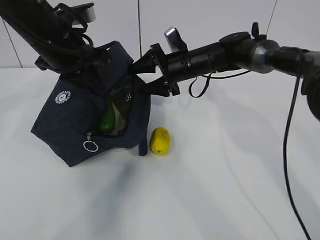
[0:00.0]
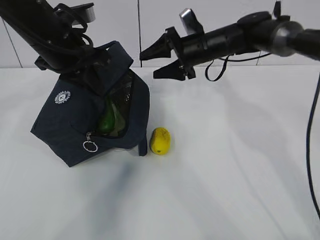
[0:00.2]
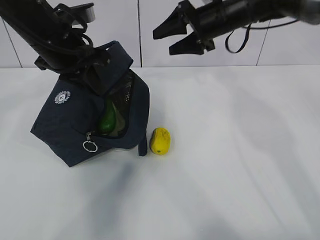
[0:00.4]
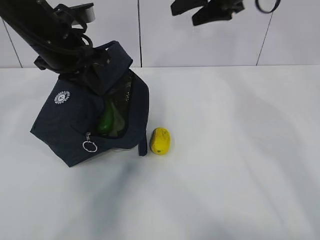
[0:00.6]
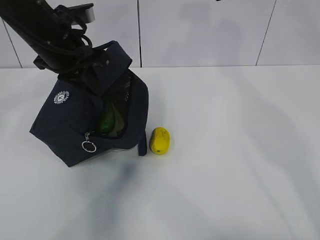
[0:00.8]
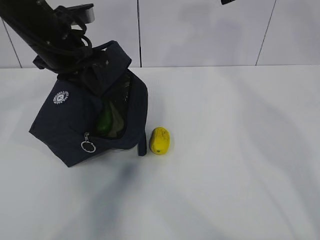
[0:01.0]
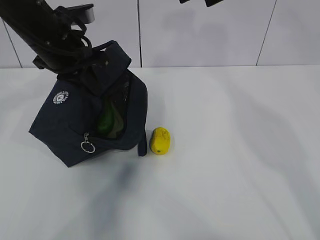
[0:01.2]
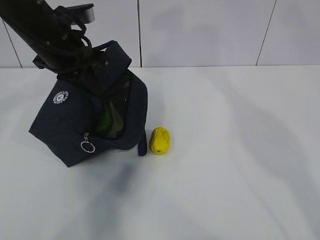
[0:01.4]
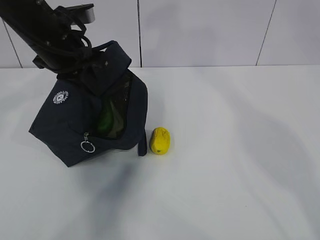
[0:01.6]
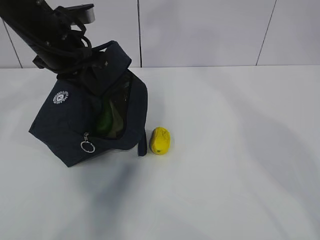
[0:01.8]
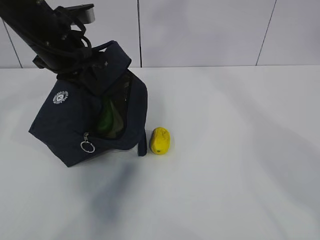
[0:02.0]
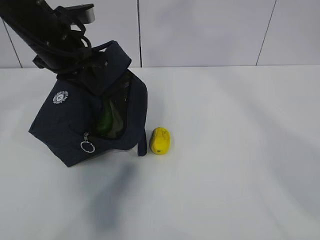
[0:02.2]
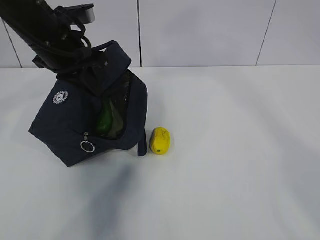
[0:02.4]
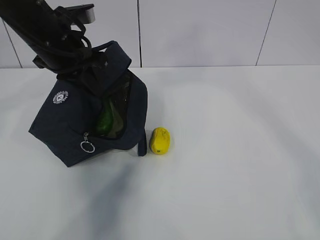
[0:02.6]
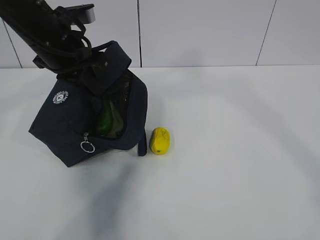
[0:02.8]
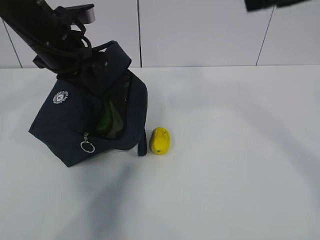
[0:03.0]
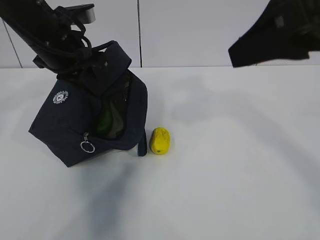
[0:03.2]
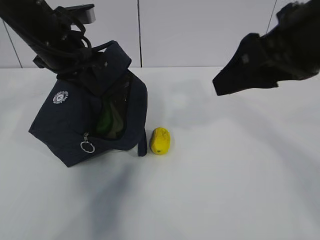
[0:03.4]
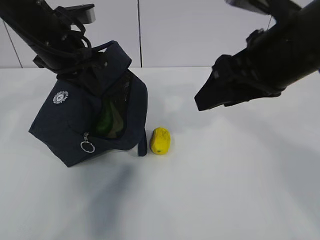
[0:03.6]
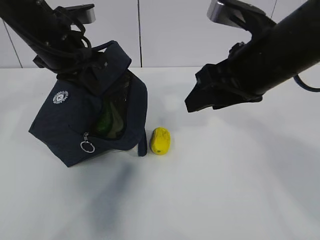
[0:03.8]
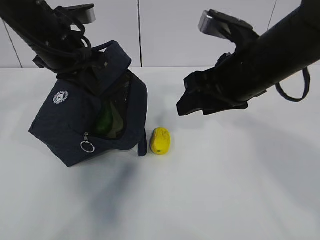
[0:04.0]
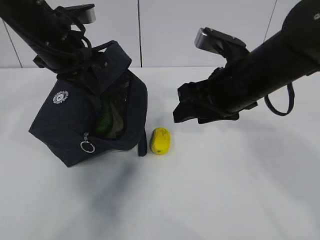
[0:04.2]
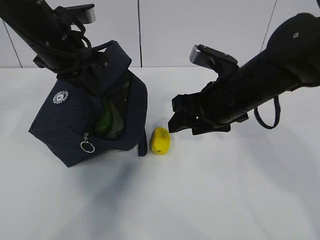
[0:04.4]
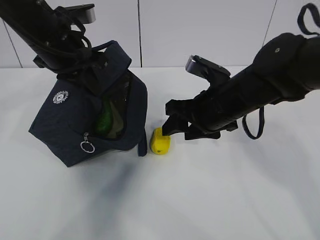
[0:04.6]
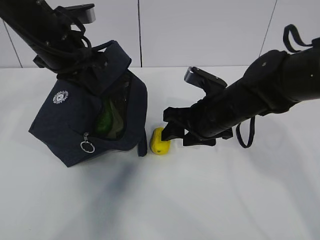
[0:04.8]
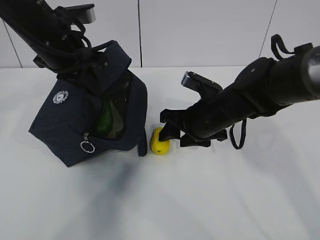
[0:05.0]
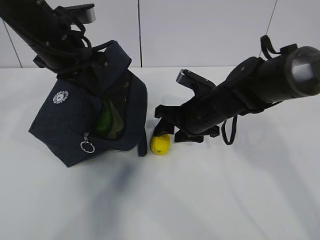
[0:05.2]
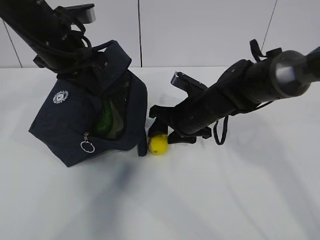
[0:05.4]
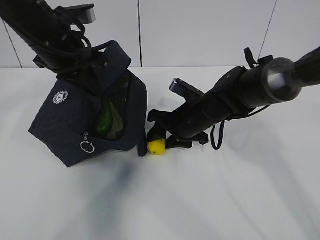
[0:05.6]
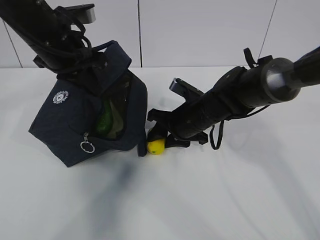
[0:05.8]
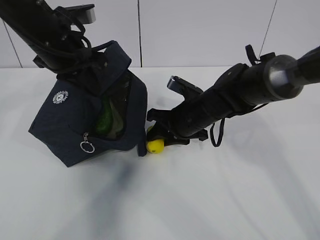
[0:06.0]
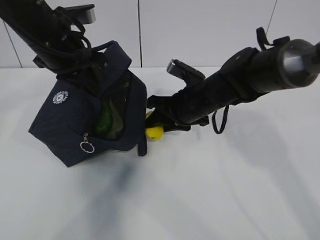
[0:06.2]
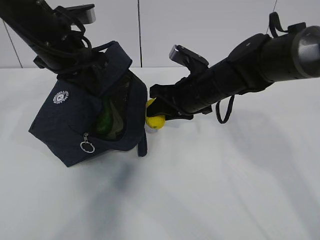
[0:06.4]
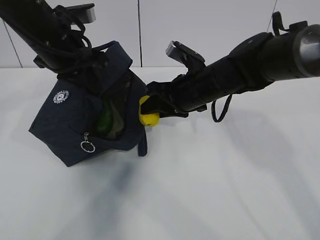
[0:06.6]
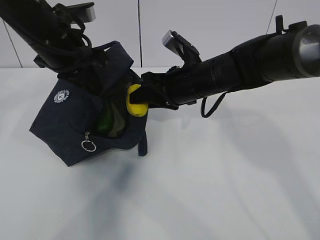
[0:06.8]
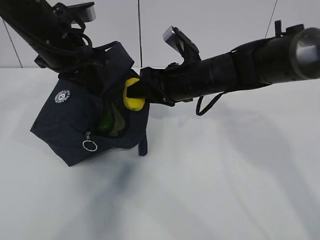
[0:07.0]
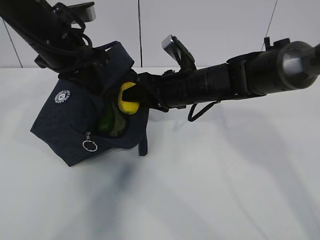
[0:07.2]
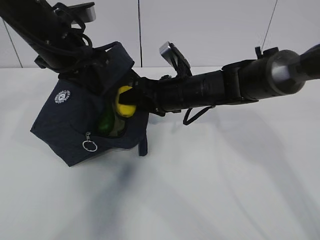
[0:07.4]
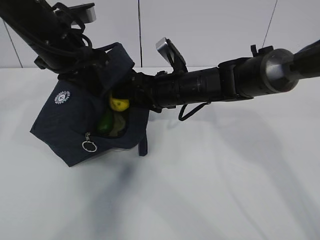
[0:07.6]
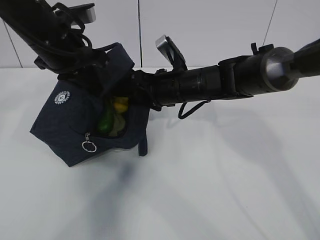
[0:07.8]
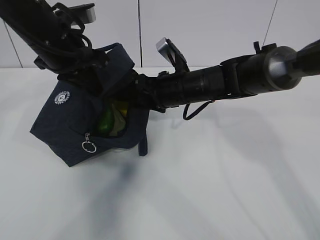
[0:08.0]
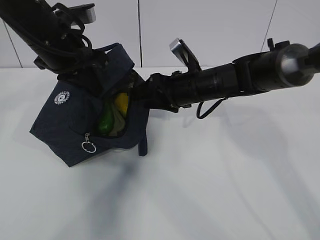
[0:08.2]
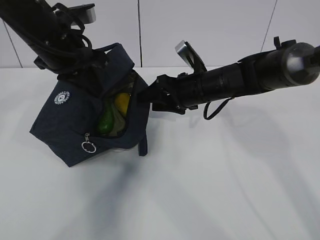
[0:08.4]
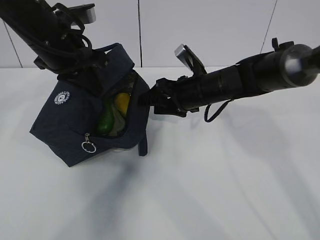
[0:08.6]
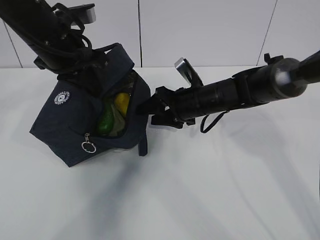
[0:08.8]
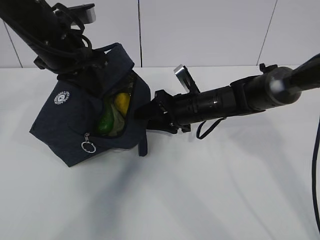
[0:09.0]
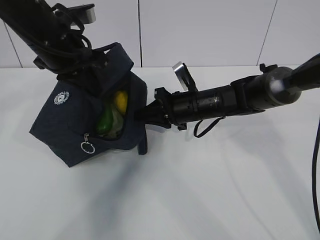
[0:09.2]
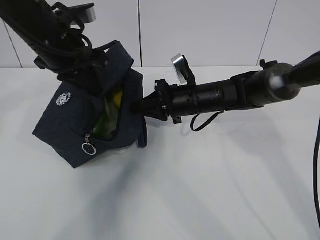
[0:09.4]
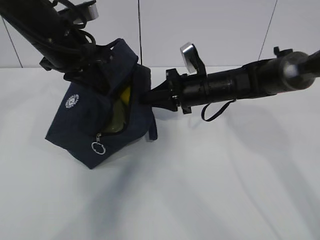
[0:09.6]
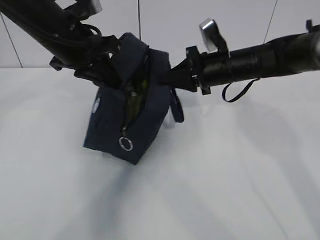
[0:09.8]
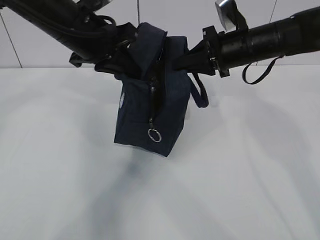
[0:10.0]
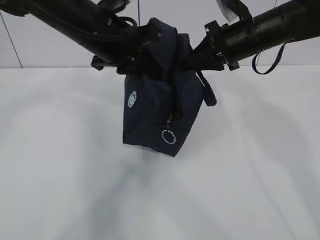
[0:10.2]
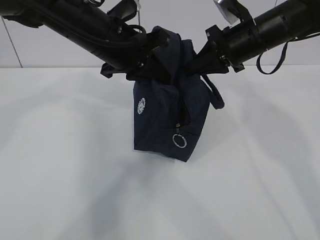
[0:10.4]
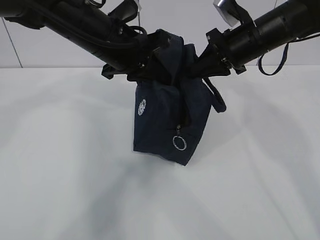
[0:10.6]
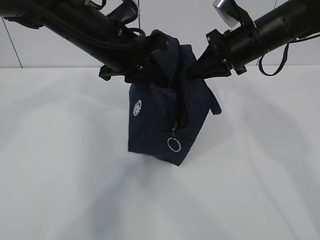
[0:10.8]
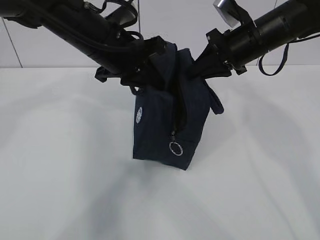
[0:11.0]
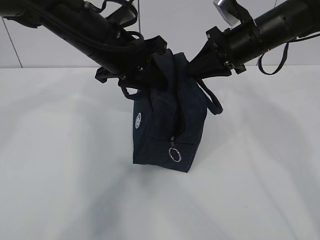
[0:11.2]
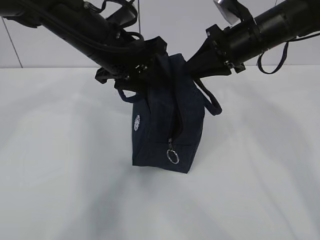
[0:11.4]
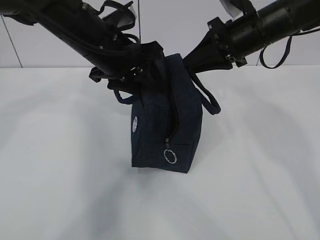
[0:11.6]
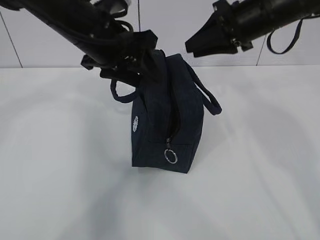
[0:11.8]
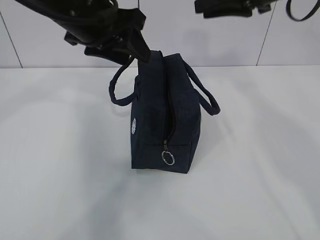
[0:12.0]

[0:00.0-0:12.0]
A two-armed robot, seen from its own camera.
Step, 2.6 to 3.4 s: Grab the lunch bag with your right hand.
Step, 3.6 to 5.4 s: Move the lunch bag to the right.
0.0 to 1.6 s: The right gripper shifts about 35 cm upward and backward.
1.6 to 3.0 s: The right gripper shifts some 15 cm backward and to the right.
3.0 to 4.4 s: The right gripper heads downward and forward, covering about 25 cm.
4.4 to 6.0 s: The right gripper moves downward and forward, approximately 10 cm.
6.0 to 7.6 s: The right gripper ends up some 5 cm from where it was.
7.6 to 9.0 s: The right gripper heads downward, covering about 5 cm.
9.0 to 10.4 s: The left gripper heads to the right, covering approximately 10 cm. Meanwhile the right gripper goes about 15 cm upward and to the right, and closes.
10.4 to 12.0 s: The right gripper is displaced upward by about 10 cm. The left gripper is displaced upward by roughly 5 cm, and opens.

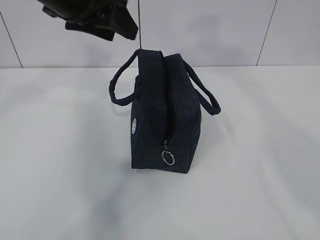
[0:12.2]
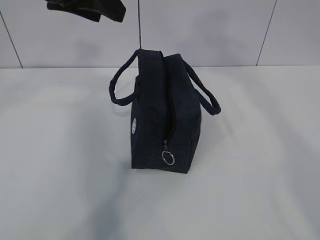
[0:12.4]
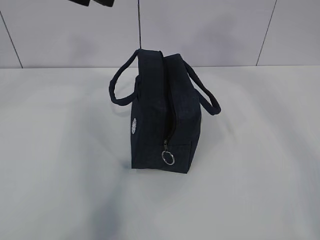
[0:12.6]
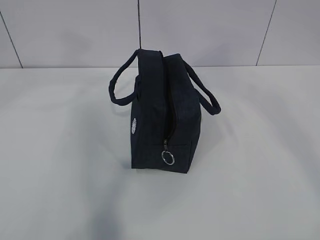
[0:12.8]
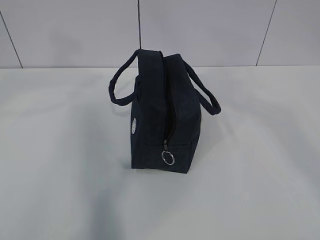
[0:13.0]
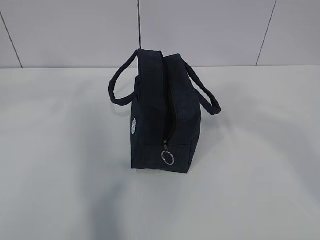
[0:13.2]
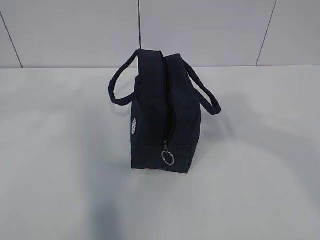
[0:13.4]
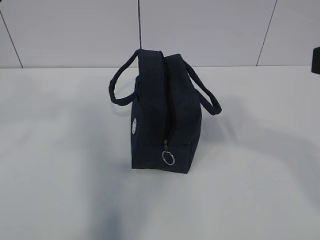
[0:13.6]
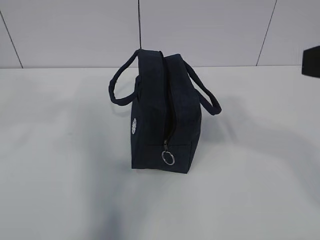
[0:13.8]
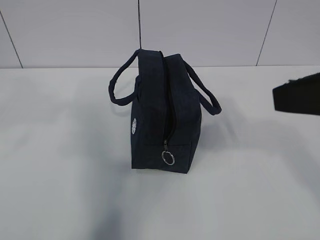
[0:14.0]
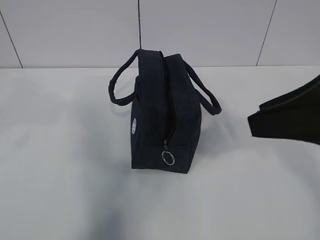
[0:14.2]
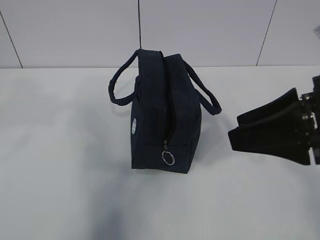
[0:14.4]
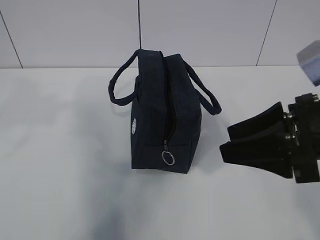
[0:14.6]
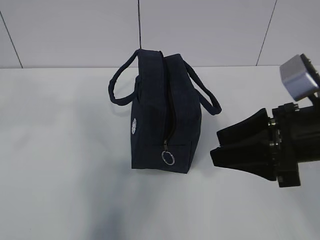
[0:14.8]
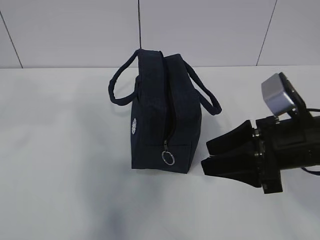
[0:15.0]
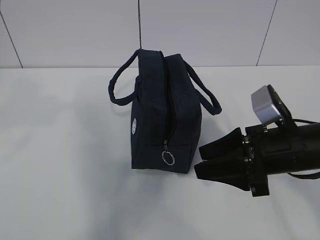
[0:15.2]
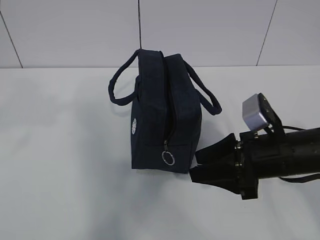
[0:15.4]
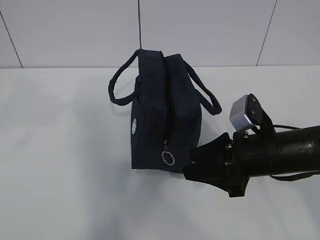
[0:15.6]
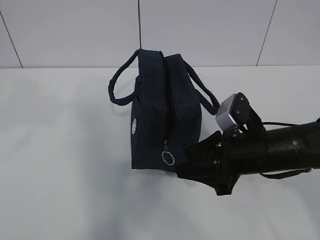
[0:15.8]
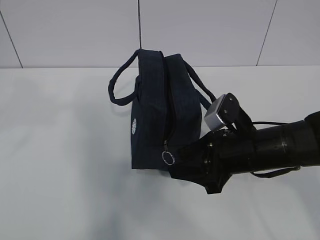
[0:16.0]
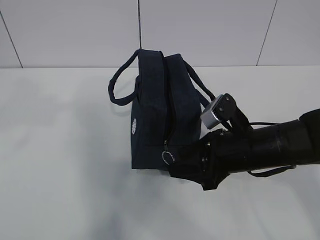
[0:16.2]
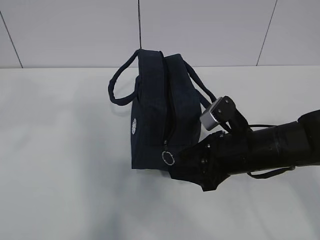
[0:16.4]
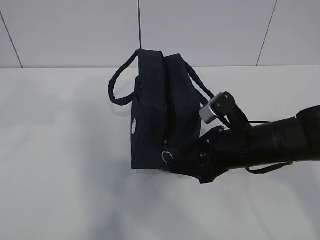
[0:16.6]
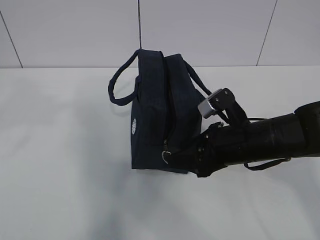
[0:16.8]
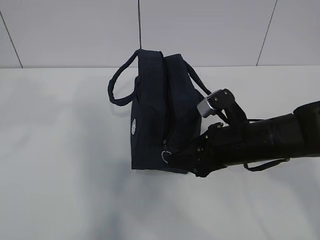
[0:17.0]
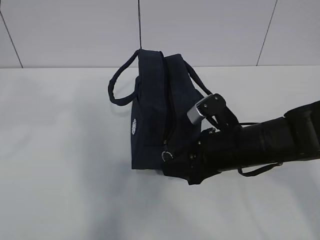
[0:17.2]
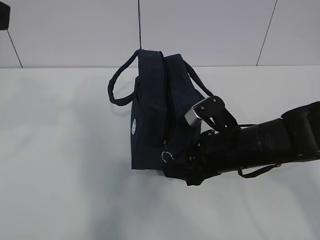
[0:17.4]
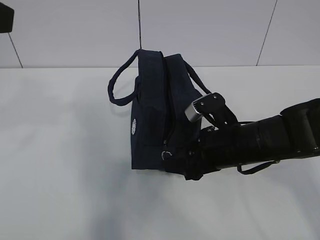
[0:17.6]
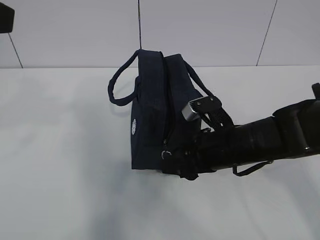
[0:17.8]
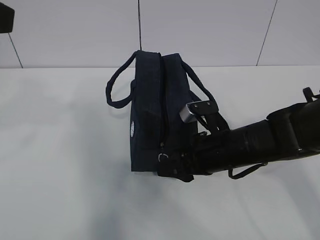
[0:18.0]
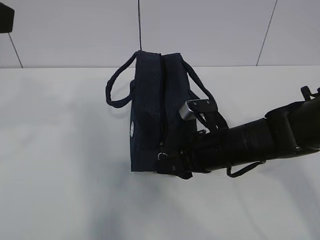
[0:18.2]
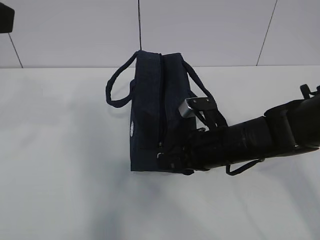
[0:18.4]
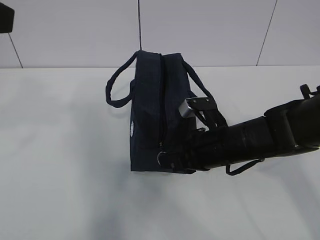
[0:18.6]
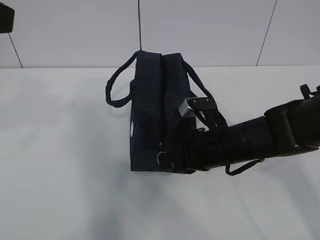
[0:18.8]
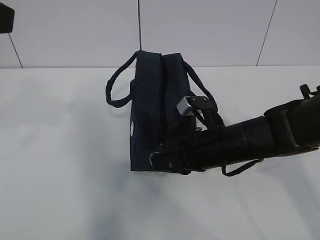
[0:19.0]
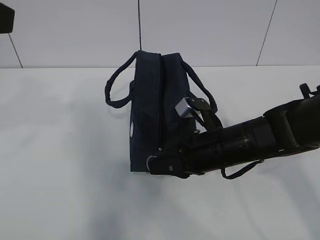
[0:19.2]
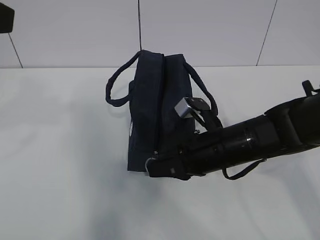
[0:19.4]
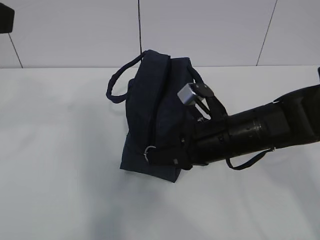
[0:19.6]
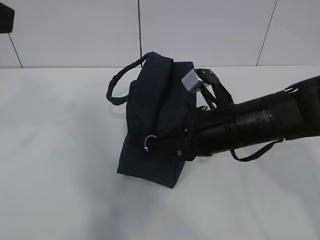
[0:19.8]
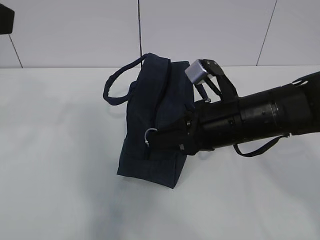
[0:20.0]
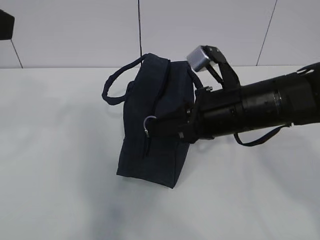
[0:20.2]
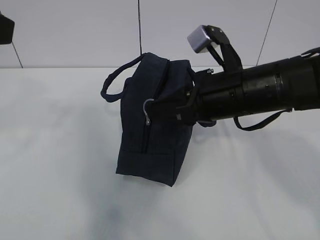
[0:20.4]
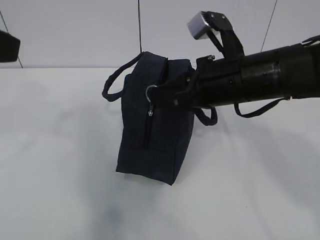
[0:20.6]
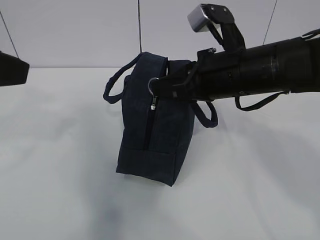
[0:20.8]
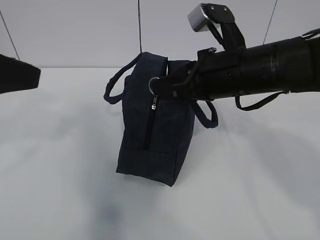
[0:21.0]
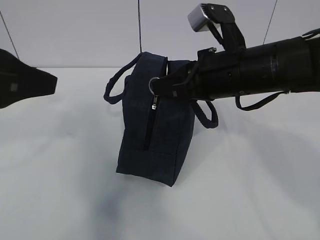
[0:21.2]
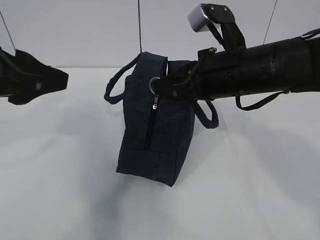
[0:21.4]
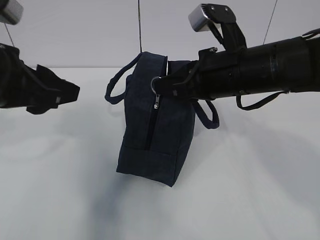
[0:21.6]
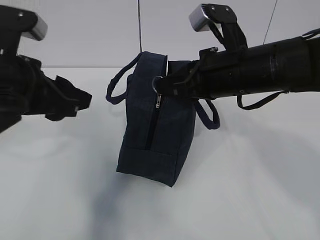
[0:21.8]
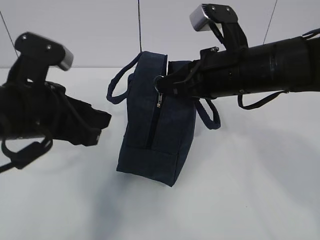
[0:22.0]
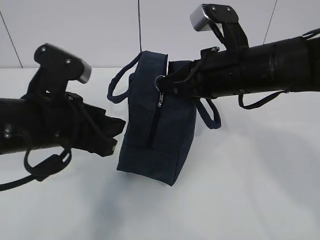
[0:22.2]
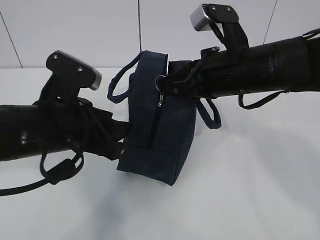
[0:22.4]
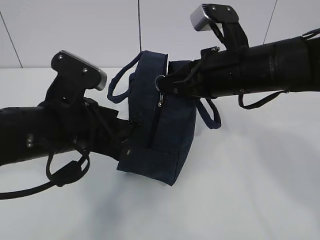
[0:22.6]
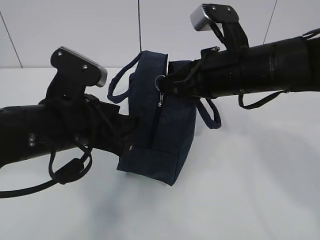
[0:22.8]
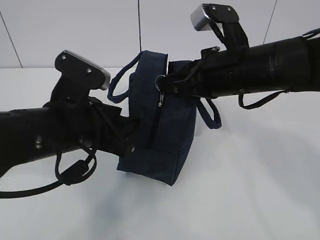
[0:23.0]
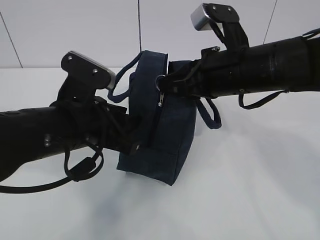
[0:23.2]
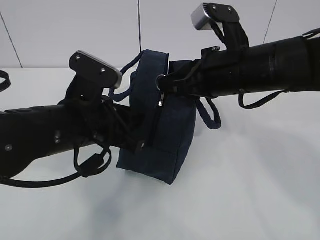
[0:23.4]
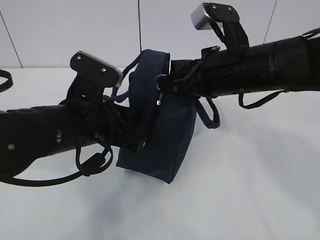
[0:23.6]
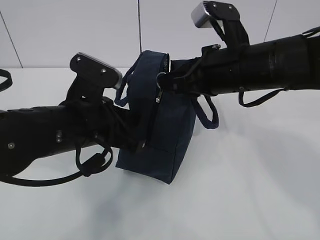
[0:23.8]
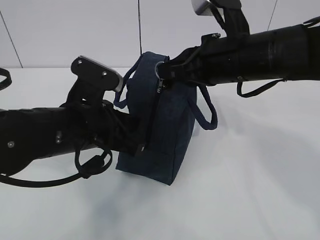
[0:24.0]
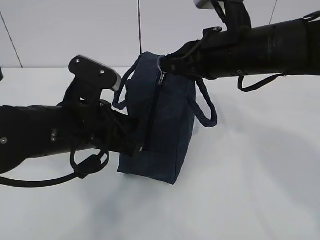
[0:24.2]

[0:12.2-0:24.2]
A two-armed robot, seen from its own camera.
Step, 12.2 to 17.8 s: Grab the lunch bag with your left hand.
Step, 18.0 to 21.4 s: Pull the zipper with your right hand.
Step, 21.8 to 22.8 s: Grab the lunch bag with your left hand.
12.2 to 13.8 s: The right gripper travels backward and downward by about 20 cm, while the left gripper moves backward and to the left, about 20 cm.
13.8 to 15.2 s: The right gripper shifts approximately 20 cm downward and forward.
15.2 to 16.6 s: The right gripper ends up about 5 cm from where it was.
16.6 to 18.2 s: The grippers make only small movements.
18.2 to 19.8 s: The right gripper is displaced upward by approximately 5 cm, and closes up.
19.8 to 21.2 s: The left gripper travels downward by some 5 cm, while the right gripper shifts approximately 5 cm upward.
21.2 to 22.6 s: The left gripper heads downward and to the right, covering roughly 15 cm.
22.6 to 24.2 s: The left gripper closes its fingers.
